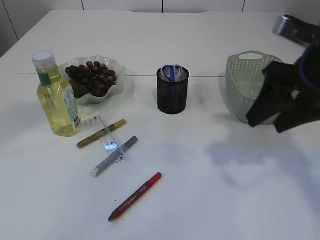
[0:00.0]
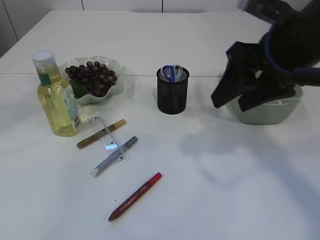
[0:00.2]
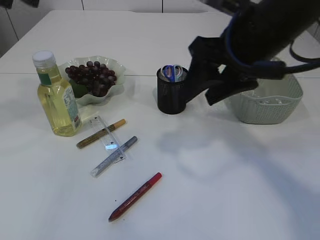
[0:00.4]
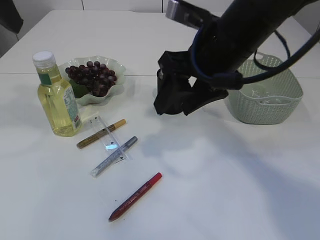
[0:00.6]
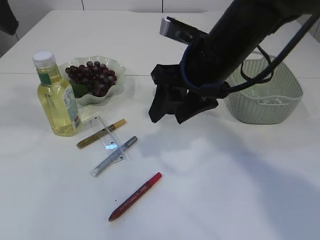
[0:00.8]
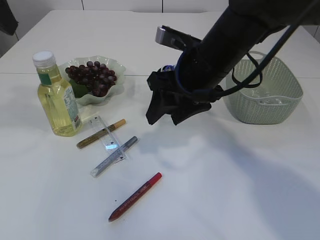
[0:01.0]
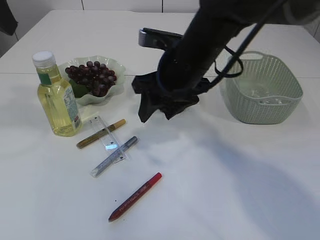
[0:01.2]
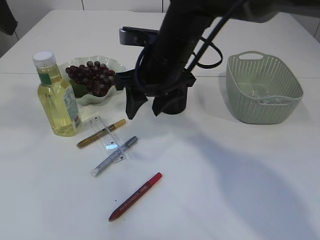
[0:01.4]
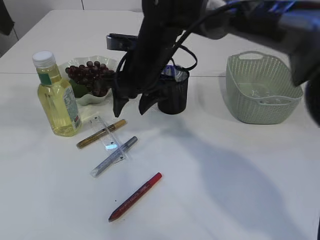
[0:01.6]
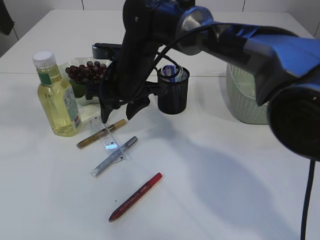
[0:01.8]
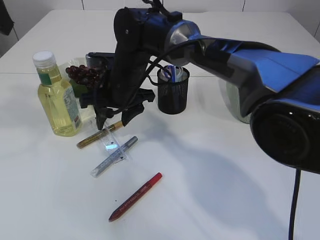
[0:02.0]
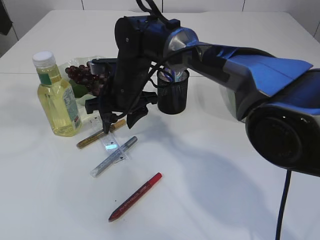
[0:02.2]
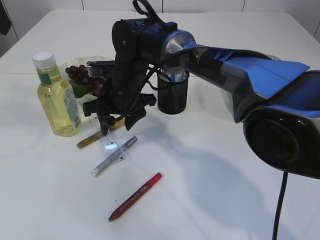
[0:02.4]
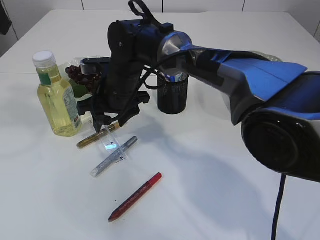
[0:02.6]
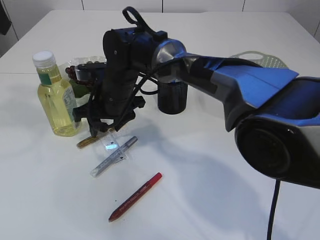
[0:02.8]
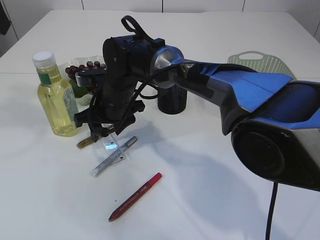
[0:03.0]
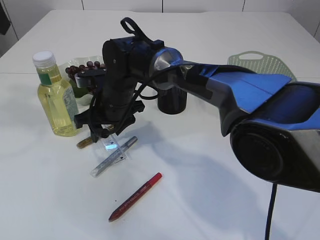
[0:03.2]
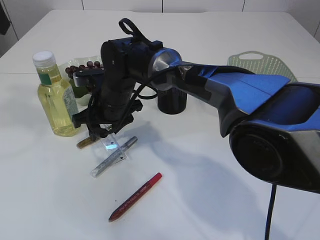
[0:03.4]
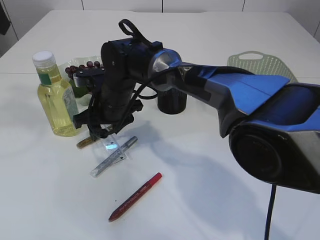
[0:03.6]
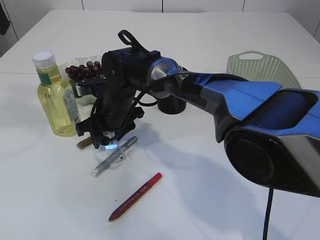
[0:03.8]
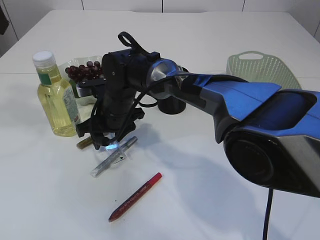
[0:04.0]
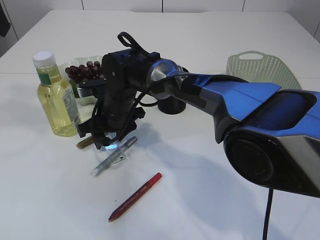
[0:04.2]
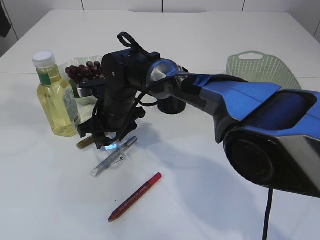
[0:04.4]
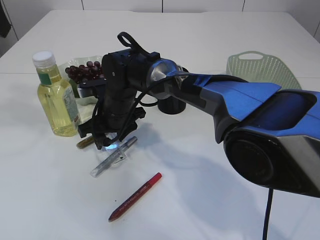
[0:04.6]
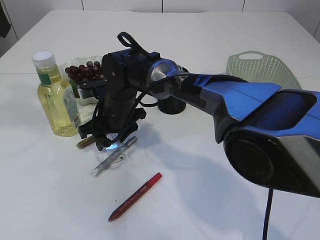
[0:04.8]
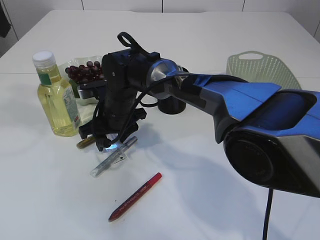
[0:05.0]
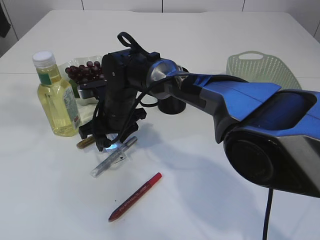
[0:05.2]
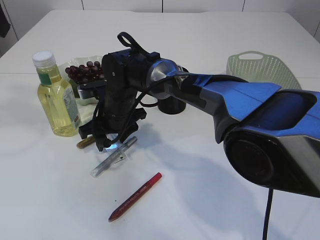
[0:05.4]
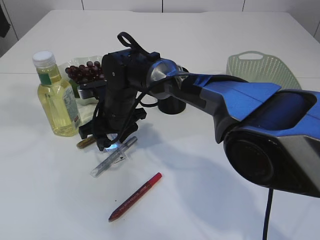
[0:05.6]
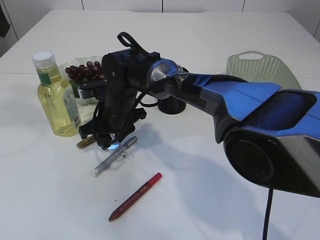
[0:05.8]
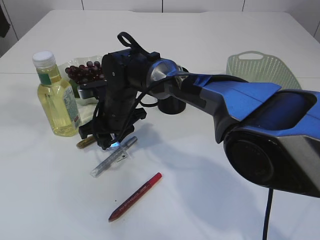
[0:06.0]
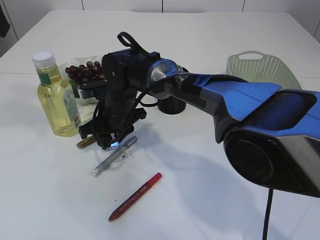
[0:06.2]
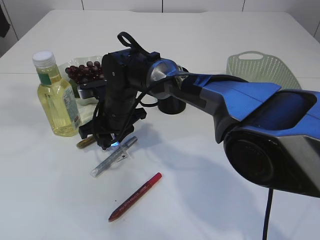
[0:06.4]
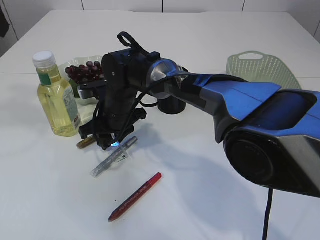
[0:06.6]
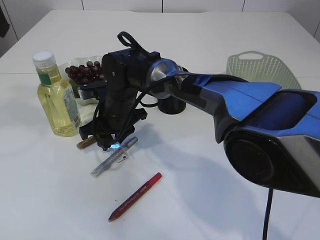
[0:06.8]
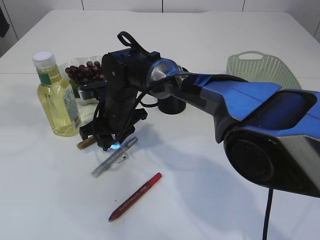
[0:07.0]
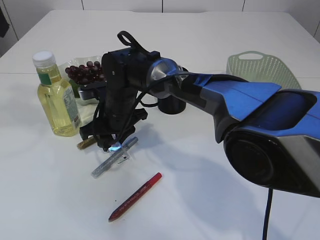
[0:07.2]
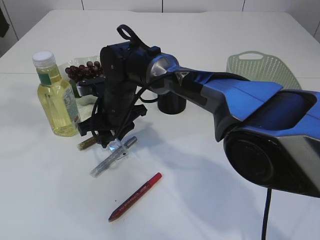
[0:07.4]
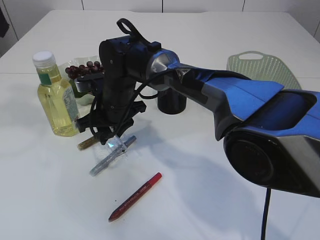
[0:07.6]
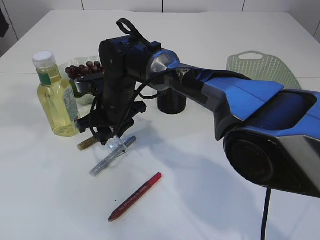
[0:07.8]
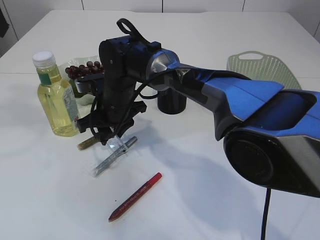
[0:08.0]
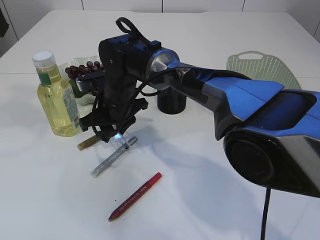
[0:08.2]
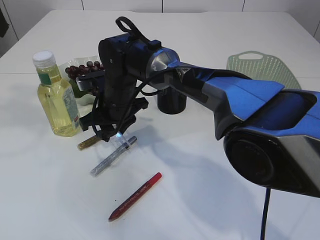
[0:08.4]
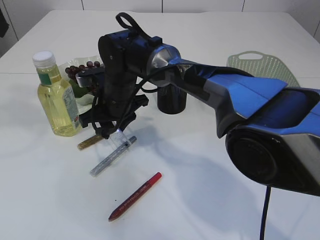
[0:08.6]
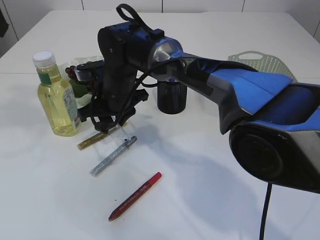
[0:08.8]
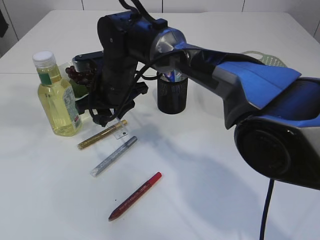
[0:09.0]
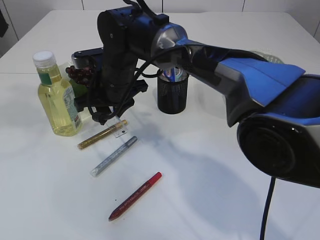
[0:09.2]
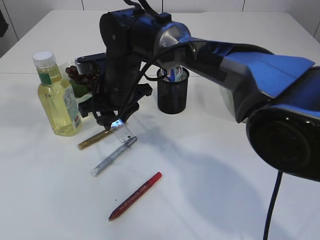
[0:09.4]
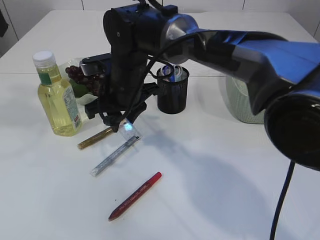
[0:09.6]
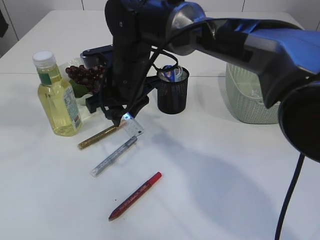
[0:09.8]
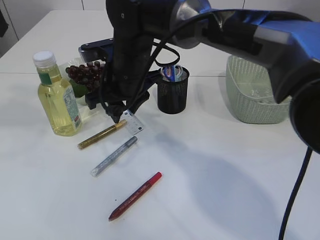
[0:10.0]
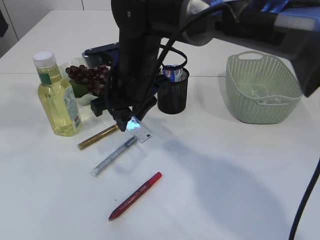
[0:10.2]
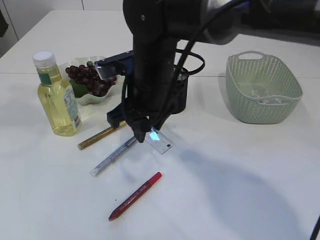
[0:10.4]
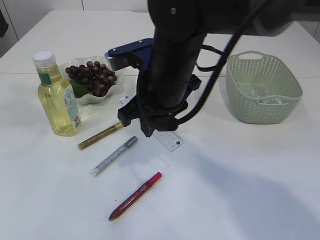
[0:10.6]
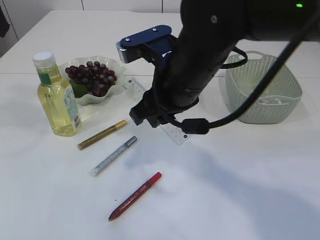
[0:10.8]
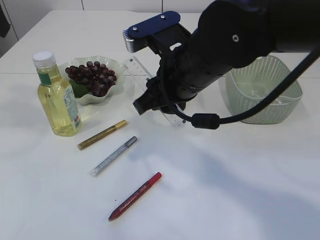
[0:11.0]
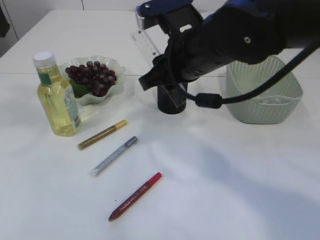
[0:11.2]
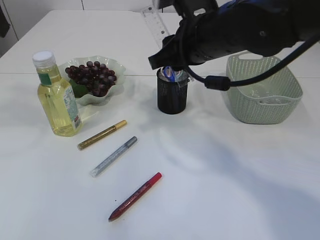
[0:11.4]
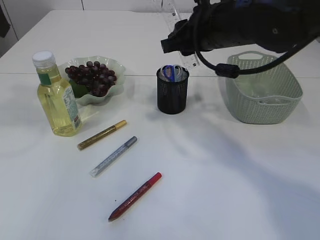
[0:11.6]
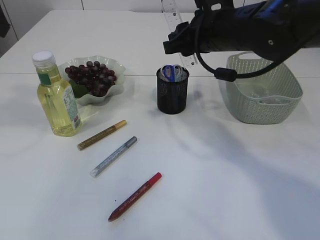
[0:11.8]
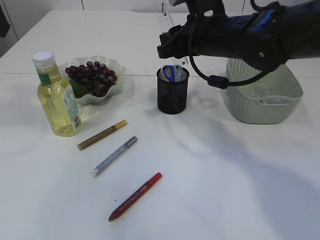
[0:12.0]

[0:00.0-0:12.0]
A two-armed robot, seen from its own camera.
Step, 0:00.0 to 0:08.8: pick up the ruler.
0:00.0 to 0:01.6: The left gripper shifts about 10 cm to the left; the right gripper travels to the left and forward by roughly 25 cm.
0:01.6 to 0:03.0: The right gripper moves downward and to the left, roughly 10 cm.
0:03.0 to 0:04.4: There are only small adjustments of the grippers.
0:06.0 to 0:07.6: The grippers stay close to where they were, moving slightly.
0:09.0 to 0:10.4: The right gripper is displaced backward and to the right by some 10 cm.
0:10.4 to 0:12.0: The right gripper moves to the right and forward, about 10 cm.

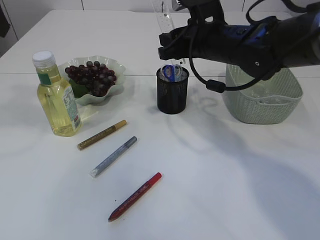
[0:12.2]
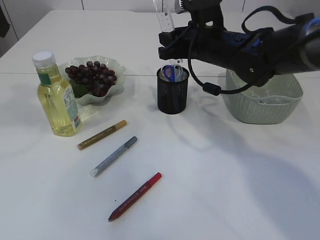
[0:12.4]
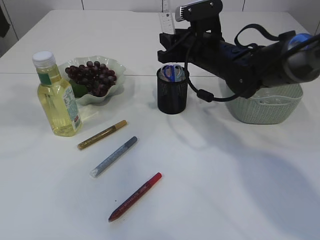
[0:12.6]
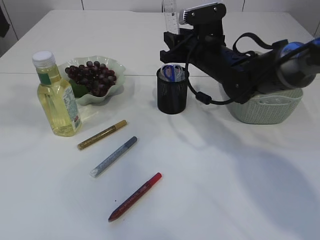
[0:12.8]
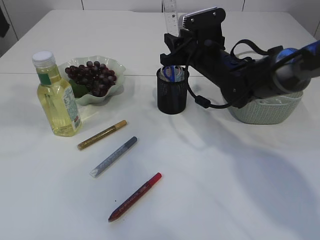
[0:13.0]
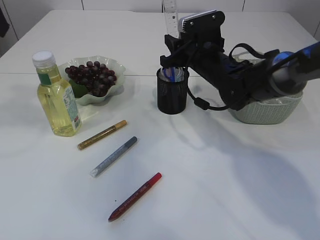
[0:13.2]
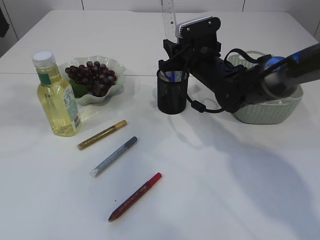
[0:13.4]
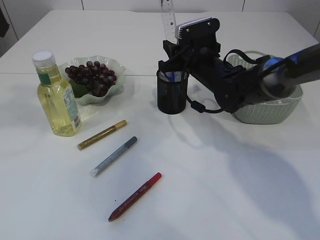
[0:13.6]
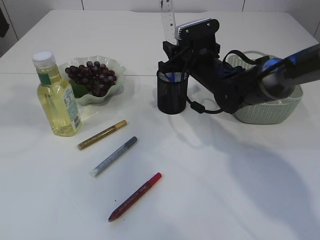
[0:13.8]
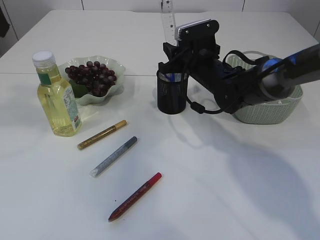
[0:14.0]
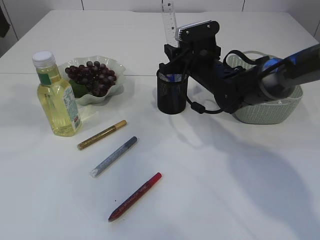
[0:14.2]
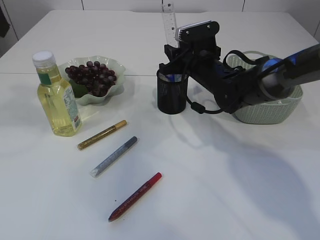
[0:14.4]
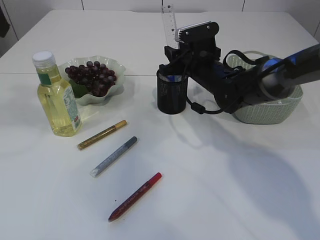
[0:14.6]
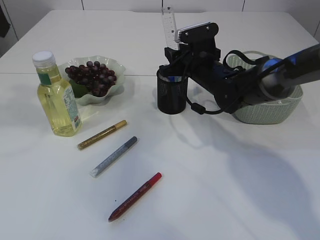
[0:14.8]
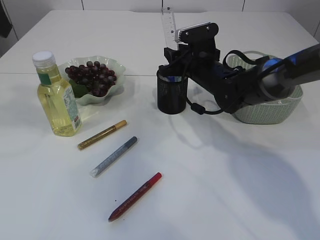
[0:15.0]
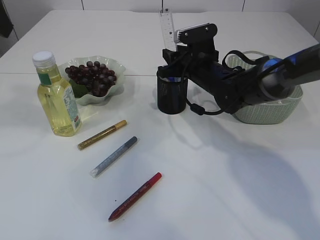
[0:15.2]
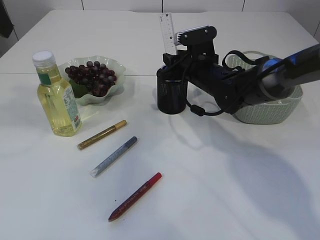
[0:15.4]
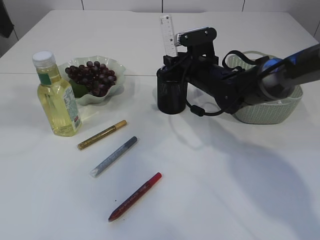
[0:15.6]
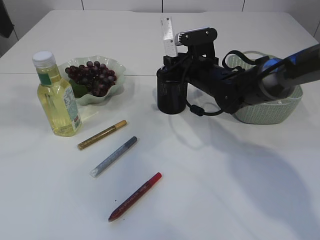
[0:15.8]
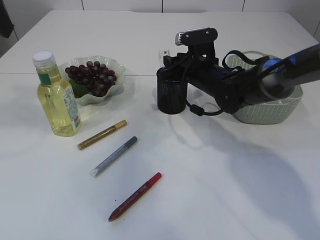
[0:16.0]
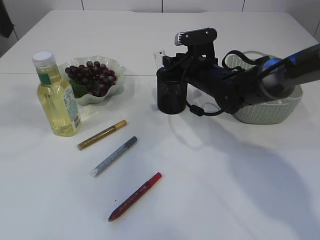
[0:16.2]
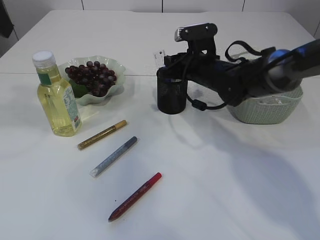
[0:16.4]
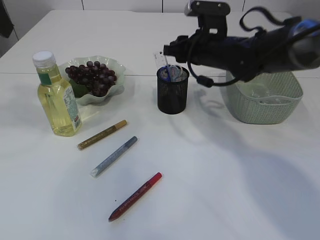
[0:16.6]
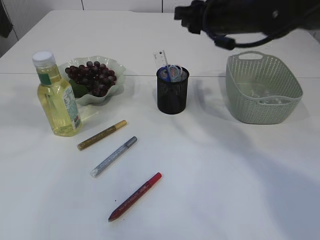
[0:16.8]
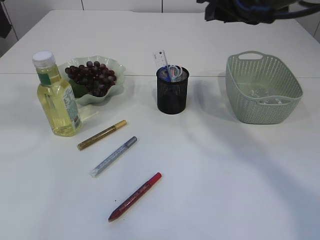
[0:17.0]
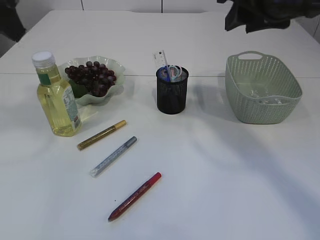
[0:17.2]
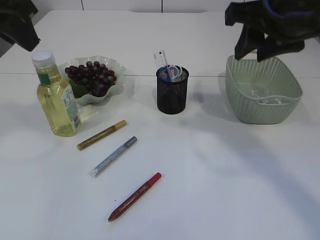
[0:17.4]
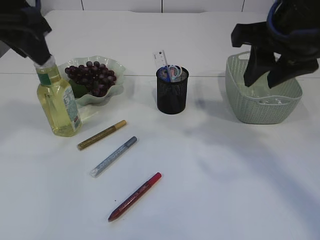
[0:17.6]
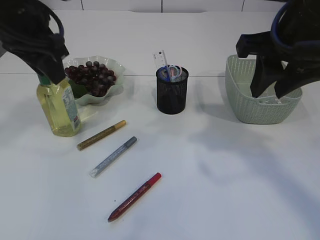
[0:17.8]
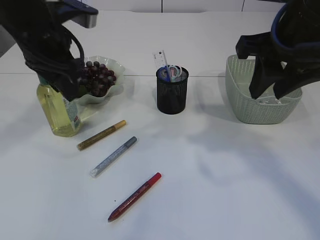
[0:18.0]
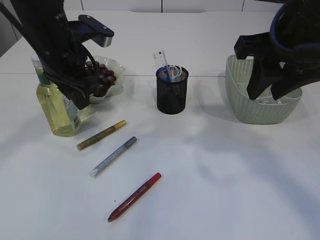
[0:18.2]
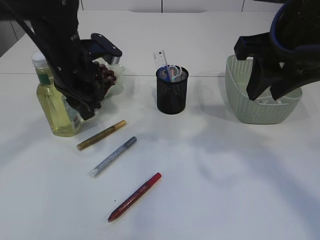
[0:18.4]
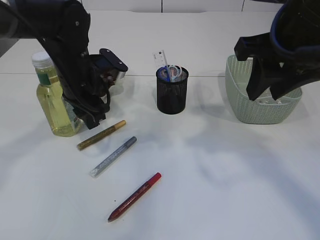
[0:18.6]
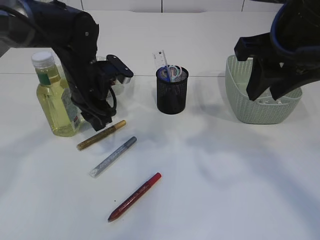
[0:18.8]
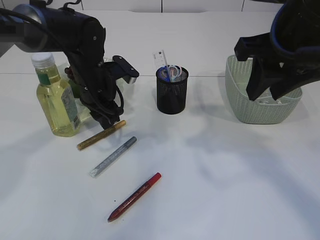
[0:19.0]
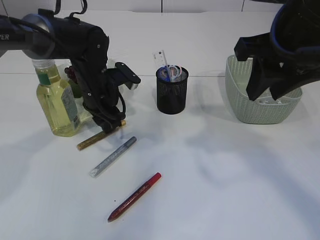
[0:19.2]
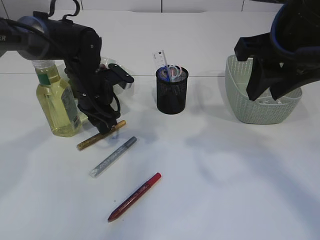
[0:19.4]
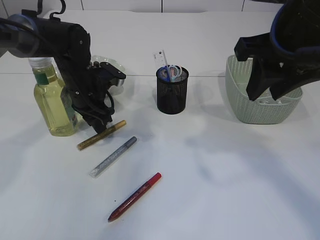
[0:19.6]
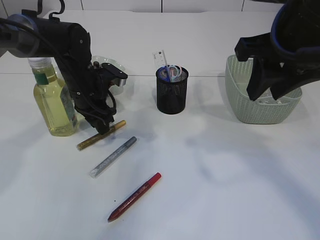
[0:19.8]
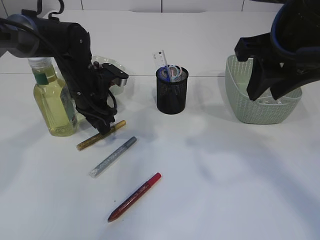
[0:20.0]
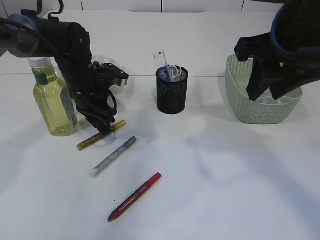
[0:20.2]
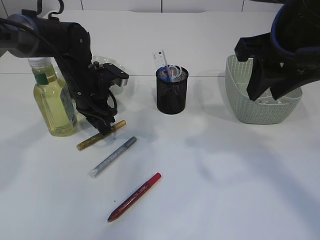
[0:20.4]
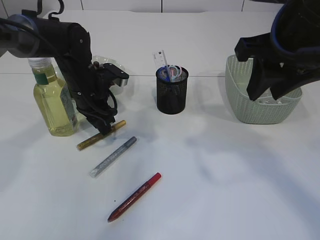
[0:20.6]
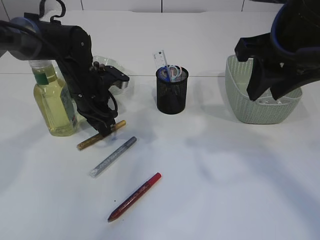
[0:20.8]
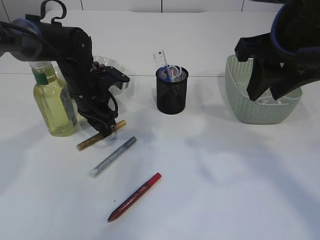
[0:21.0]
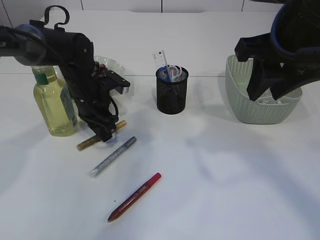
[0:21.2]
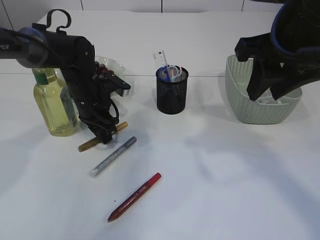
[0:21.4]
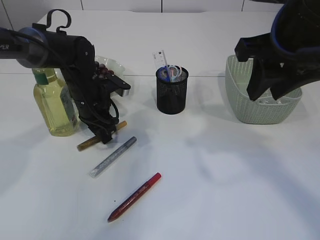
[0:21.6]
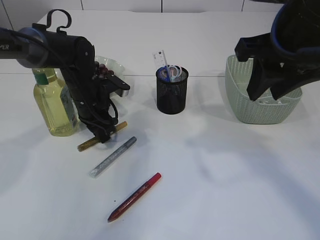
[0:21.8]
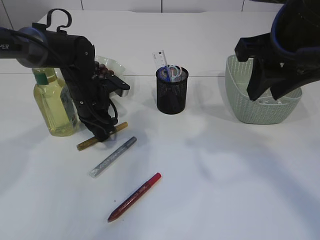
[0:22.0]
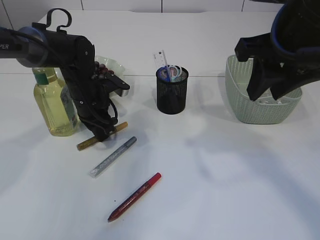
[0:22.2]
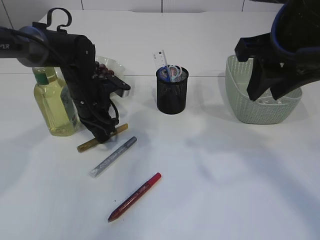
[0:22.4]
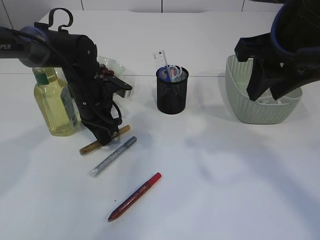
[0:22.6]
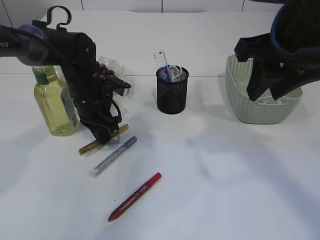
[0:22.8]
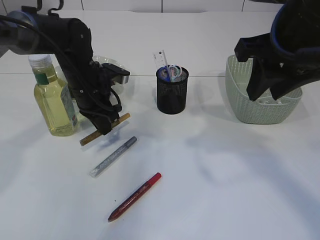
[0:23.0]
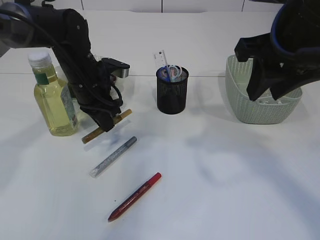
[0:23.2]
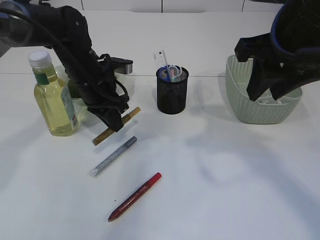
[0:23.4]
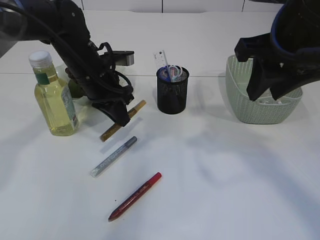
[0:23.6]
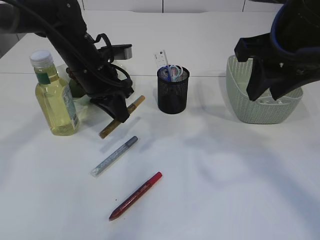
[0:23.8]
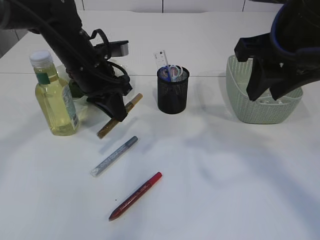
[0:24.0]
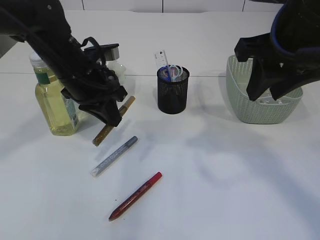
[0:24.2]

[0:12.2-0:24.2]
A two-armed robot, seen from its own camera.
Step, 0:12.2 to 0:16.6: Place the ruler into the pen holder.
Step, 0:16.8 to 0:23.0: pick up the yellow glue.
0:12.2 to 0:13.8: The right gripper travels downward and forward by approximately 10 cm.
0:13.8 to 0:15.2: The grippers stay close to where they were, moving slightly.
0:15.2 to 0:16.6: The right gripper ends up roughly 5 cm from where it was.
0:16.6 to 0:18.2: The left gripper travels downward, to the right and forward by roughly 15 cm. Meanwhile the right gripper goes approximately 20 cm backward and upward.
0:18.2 to 0:19.8: The left gripper travels downward and forward by some 15 cm.
0:19.8 to 0:21.2: The grippers make only small movements.
0:21.2 to 0:22.6: The left gripper closes its fingers.
0:22.6 to 0:24.2: The left gripper travels upward and backward by roughly 10 cm.
